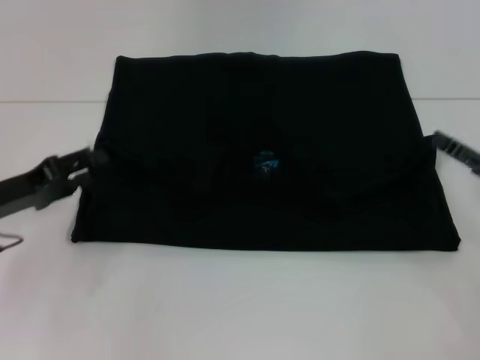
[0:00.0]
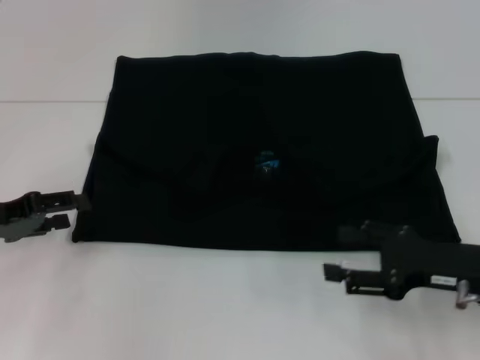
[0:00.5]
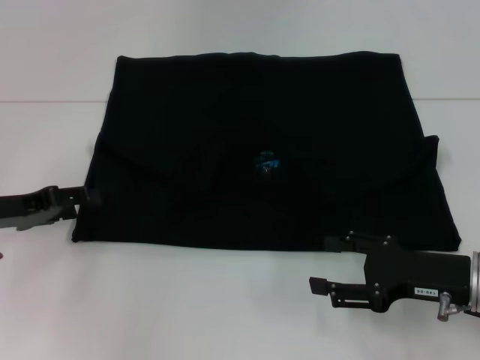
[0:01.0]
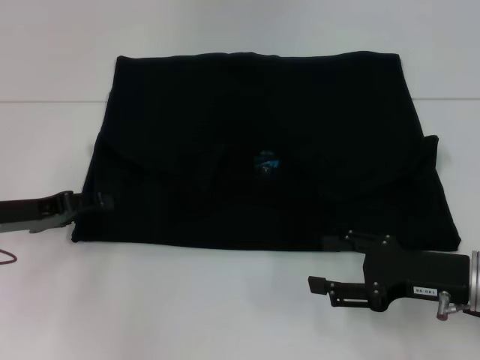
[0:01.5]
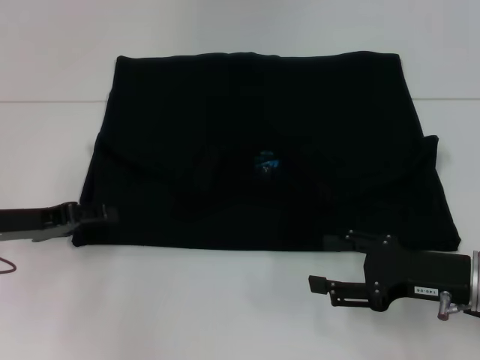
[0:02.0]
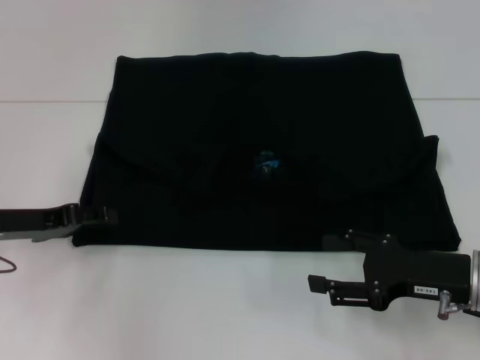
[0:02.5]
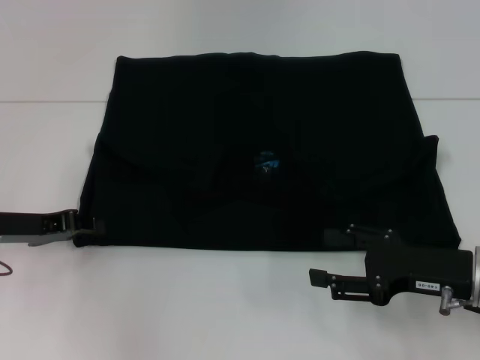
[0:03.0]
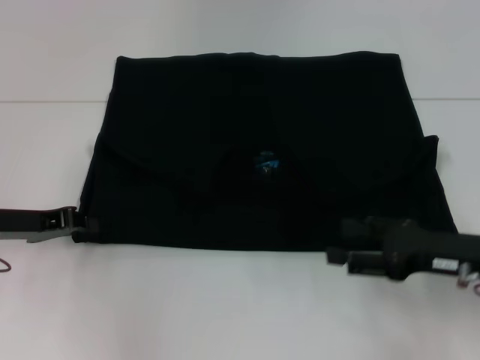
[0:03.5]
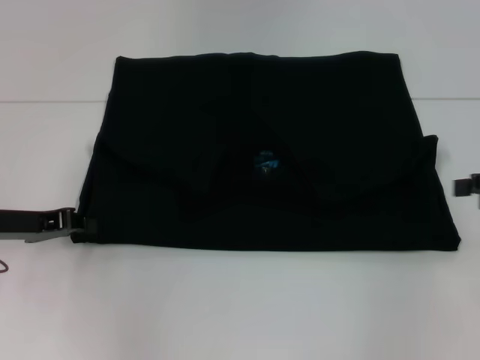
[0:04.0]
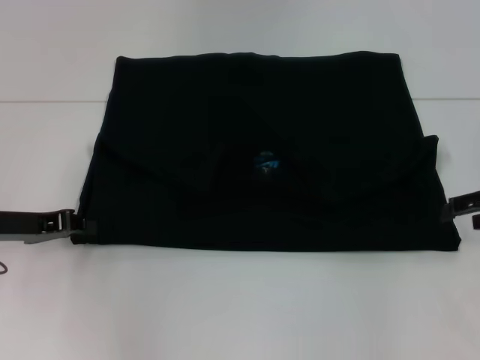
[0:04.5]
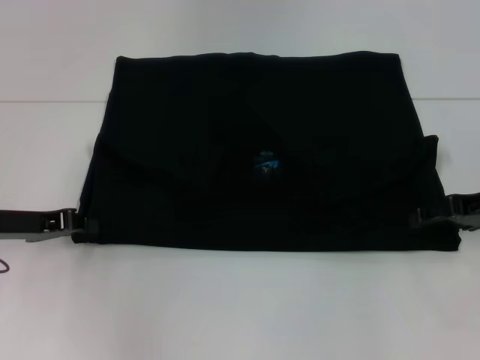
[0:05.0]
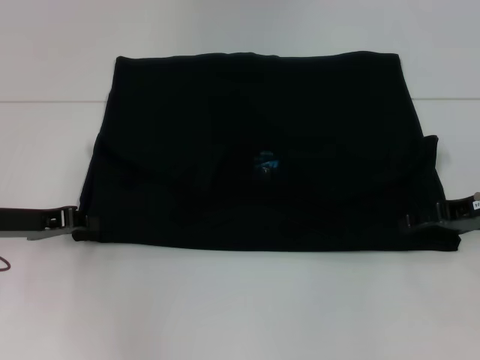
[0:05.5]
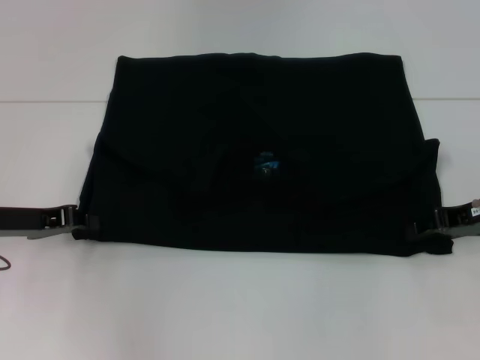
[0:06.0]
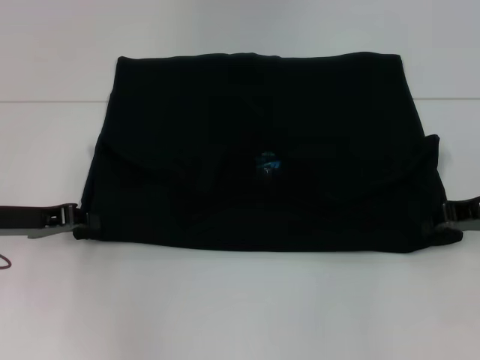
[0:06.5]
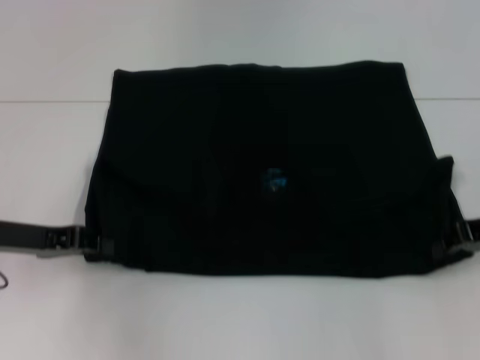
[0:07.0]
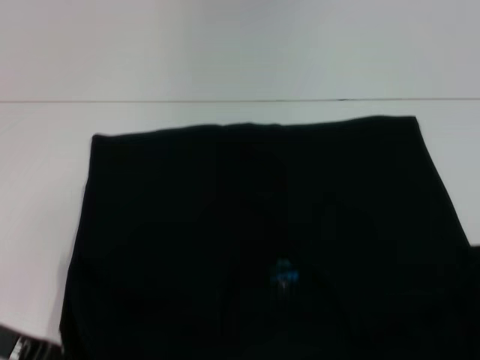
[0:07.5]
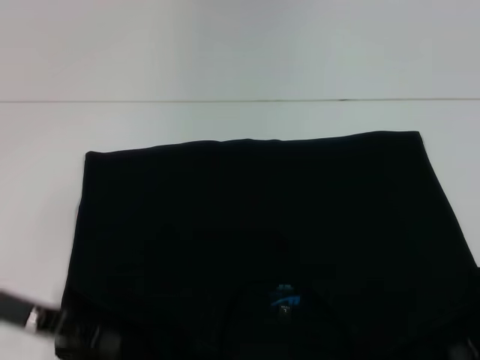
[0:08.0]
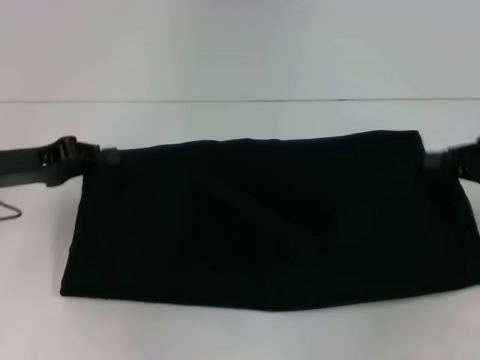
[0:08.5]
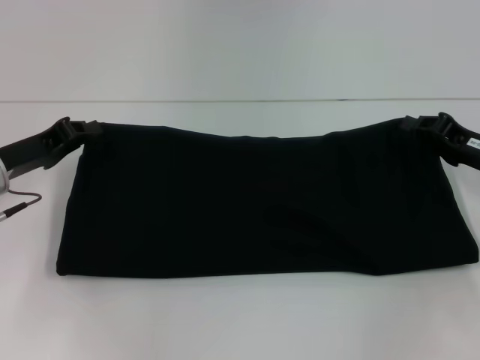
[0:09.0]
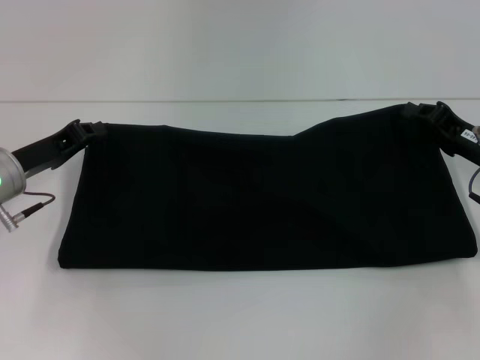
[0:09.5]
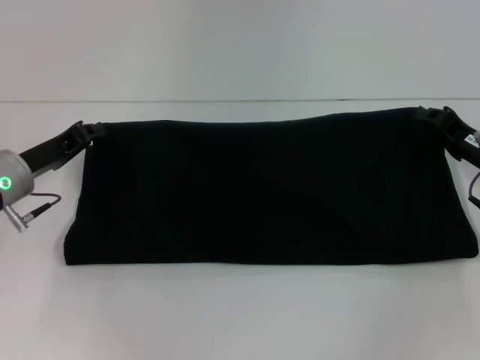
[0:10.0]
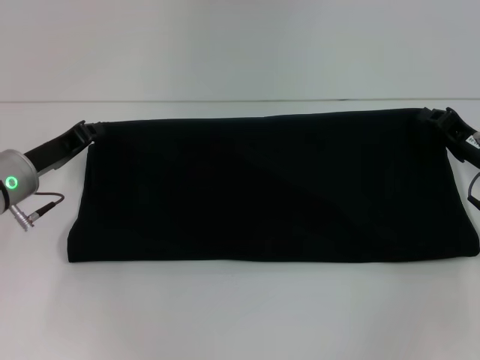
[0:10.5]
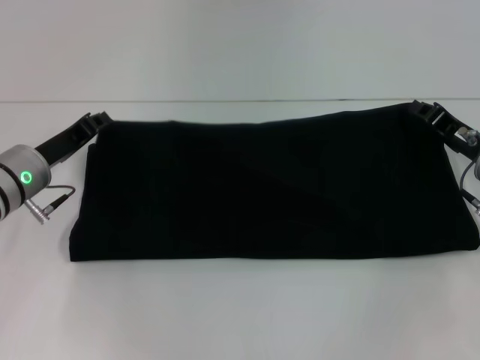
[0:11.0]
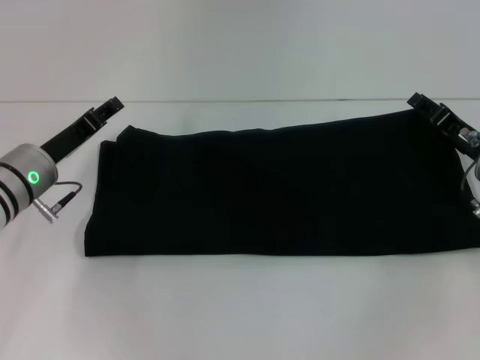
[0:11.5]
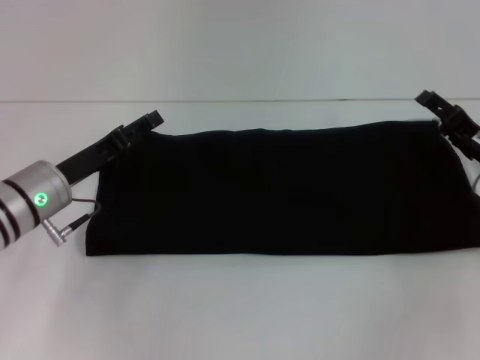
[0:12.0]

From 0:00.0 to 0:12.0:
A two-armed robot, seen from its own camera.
Step, from 0:00.0 to 0:07.0: Pull the clothes with your left hand.
Step, from 0:00.0 to 0:07.0: Pull the clothes with your right hand.
Step, from 0:07.5 to 0:12.0: Fold the clothes with your right hand.
From 0:00.0 to 0:02.0: The right gripper shifts approximately 10 cm to the left.
From 0:02.0 to 0:04.0: The right gripper shifts roughly 15 cm to the right, upward and forward. Meanwhile the left gripper closes its fingers.
From 0:04.0 to 0:06.0: The right gripper shifts about 10 cm to the left and downward.
From 0:06.0 to 0:08.0: The grippers both shift backward by approximately 5 cm. The right gripper closes up.
From 0:08.0 to 0:10.0: Both grippers travel together forward, approximately 10 cm.
From 0:10.0 to 0:12.0: The right gripper opens; the left gripper opens its fingers.

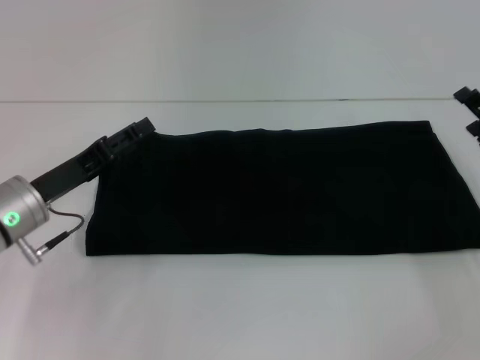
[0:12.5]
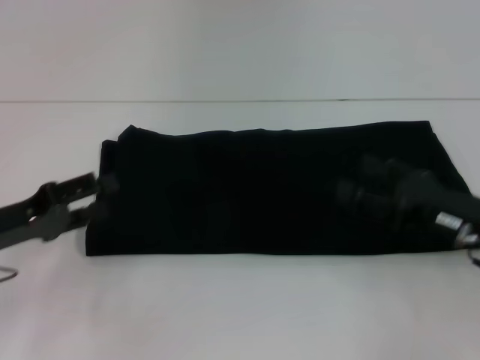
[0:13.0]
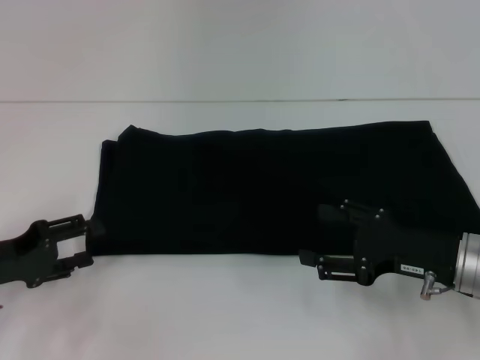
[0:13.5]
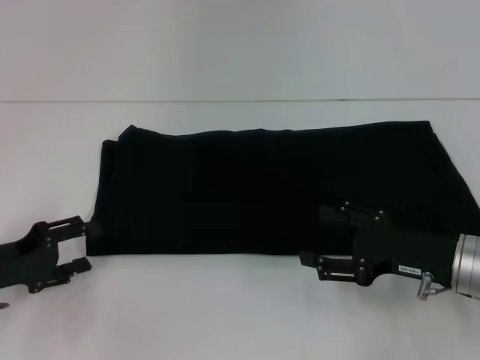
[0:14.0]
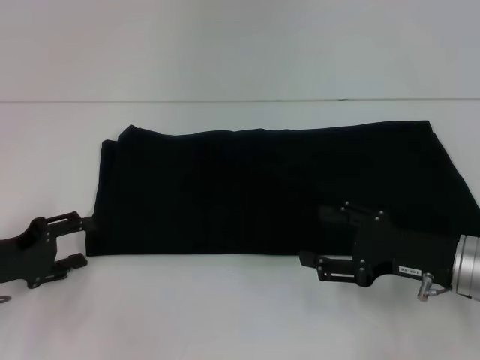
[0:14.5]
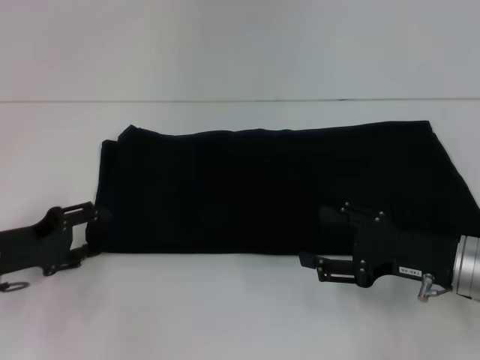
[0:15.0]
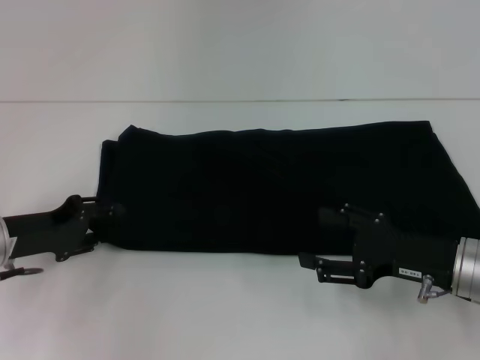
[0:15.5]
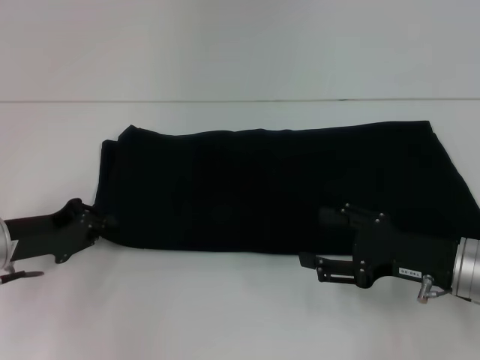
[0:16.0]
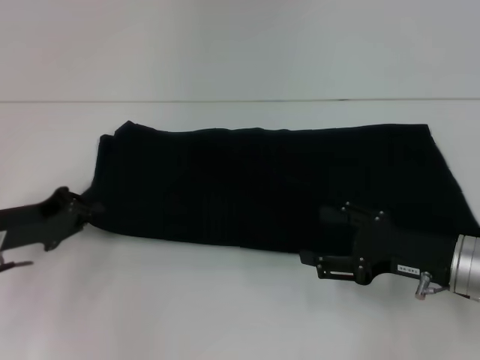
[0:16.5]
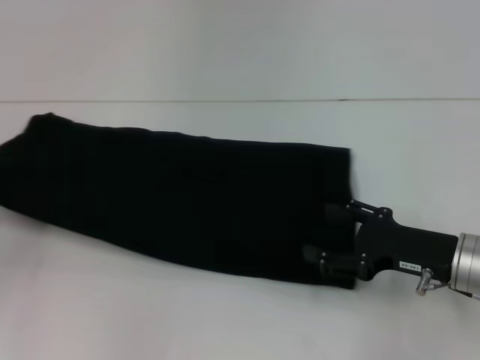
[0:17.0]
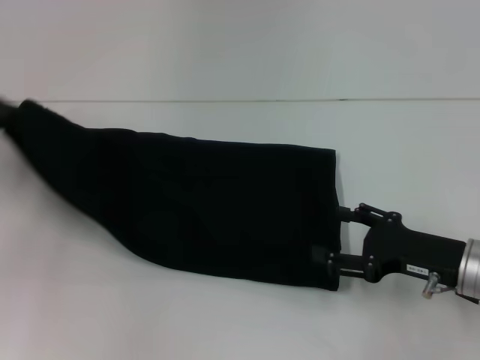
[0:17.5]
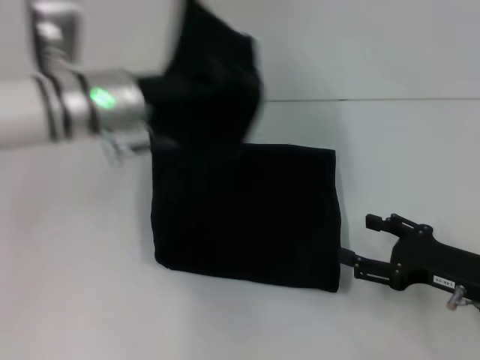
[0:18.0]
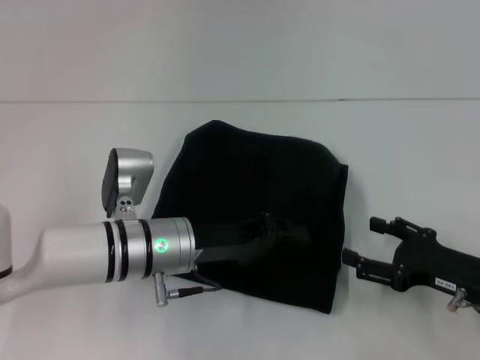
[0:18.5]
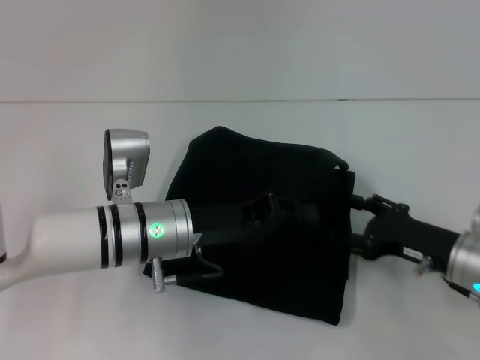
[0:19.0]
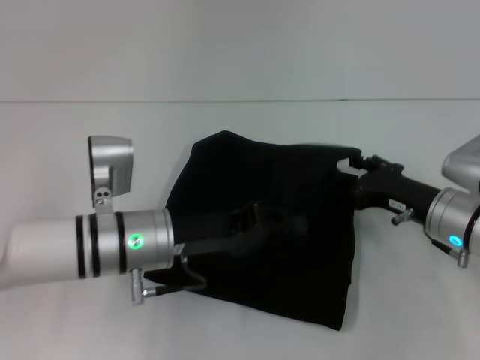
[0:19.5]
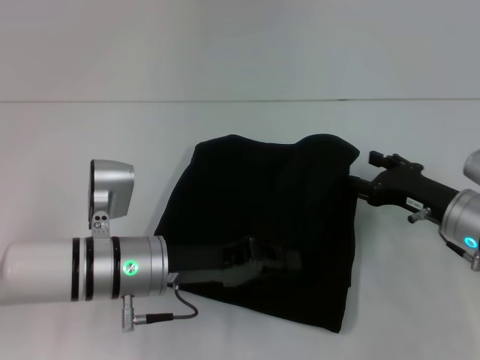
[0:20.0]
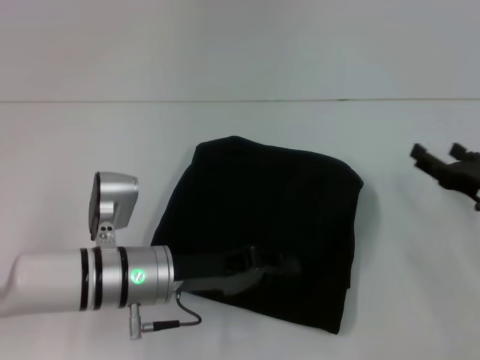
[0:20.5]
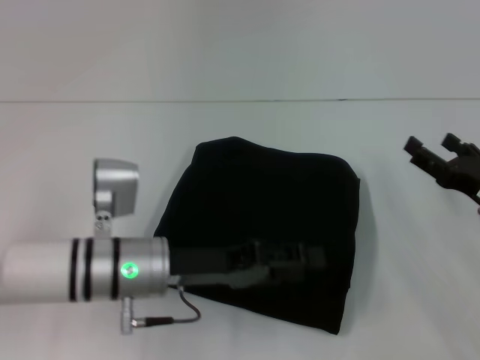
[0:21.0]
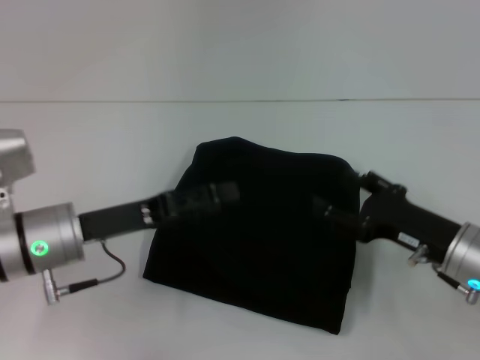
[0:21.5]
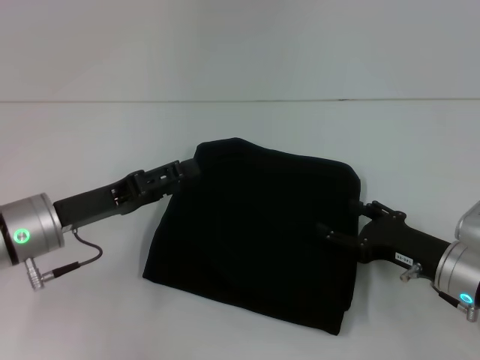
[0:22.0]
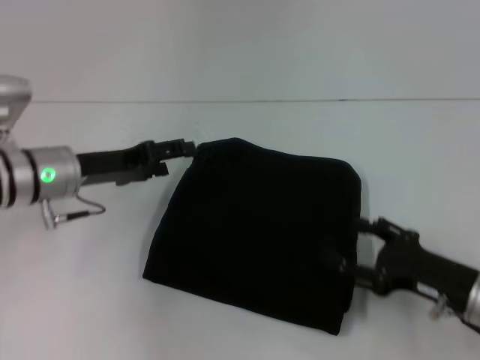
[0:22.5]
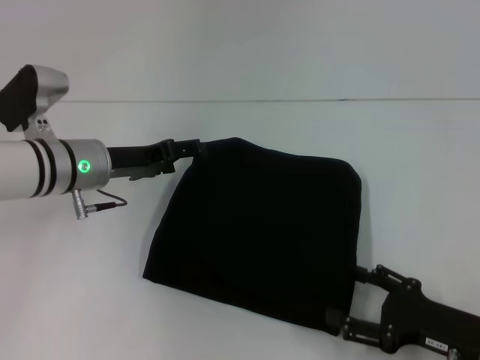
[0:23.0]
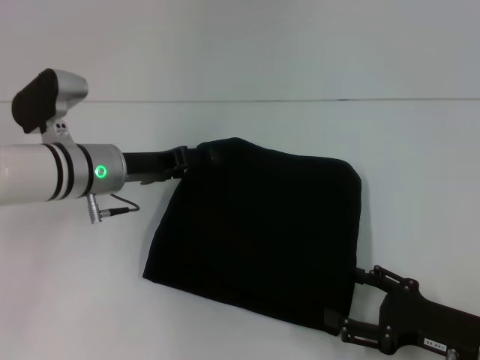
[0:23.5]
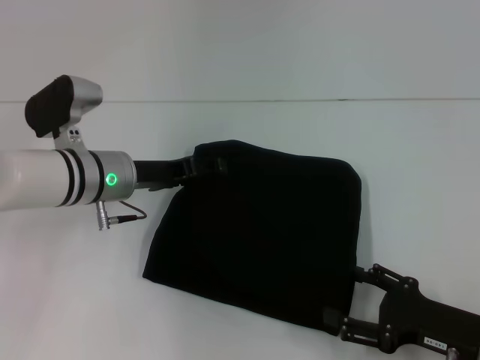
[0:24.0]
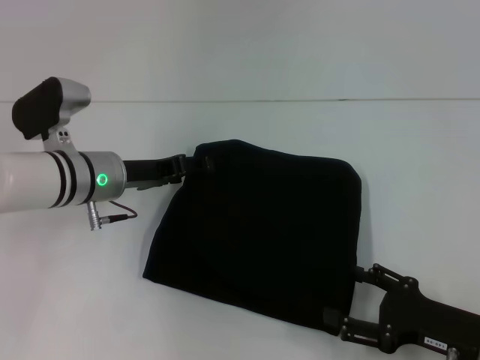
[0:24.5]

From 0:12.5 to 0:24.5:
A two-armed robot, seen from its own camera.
Step, from 0:12.5 to 0:21.0: Fold the clothes with your left hand.
From 0:12.5 to 0:14.5: The left gripper goes approximately 10 cm to the left; the right gripper shifts about 10 cm to the left and backward.
From 0:14.5 to 0:16.5: The left gripper closes its fingers.
From 0:16.5 to 0:18.5: The right gripper changes place by approximately 5 cm. The left gripper shifts about 20 cm to the right.
From 0:18.5 to 0:20.5: The right gripper shifts about 5 cm forward.
From 0:20.5 to 0:22.5: The left gripper heads to the left and forward, covering about 10 cm, and opens up. Meanwhile the right gripper travels backward by about 5 cm.
From 0:22.5 to 0:24.5: The left gripper changes place by about 5 cm.

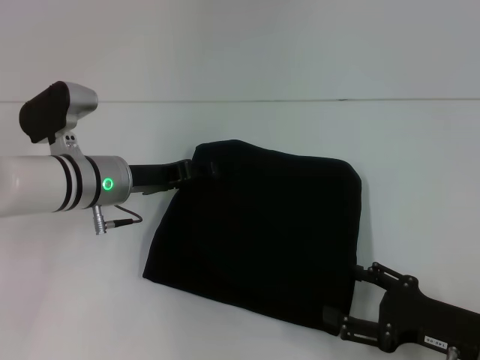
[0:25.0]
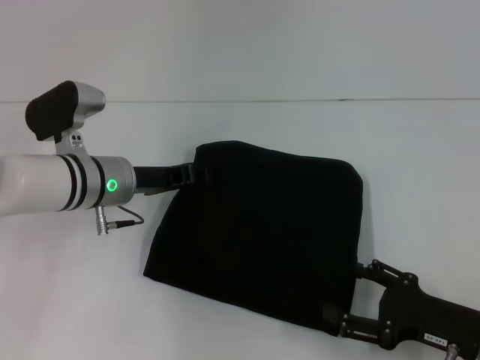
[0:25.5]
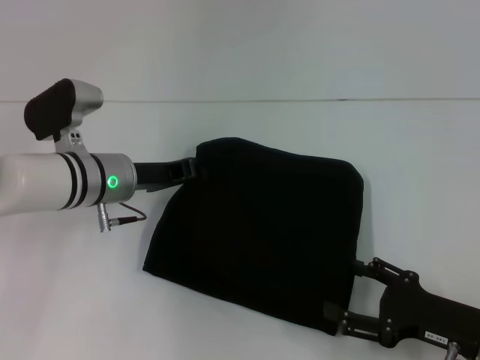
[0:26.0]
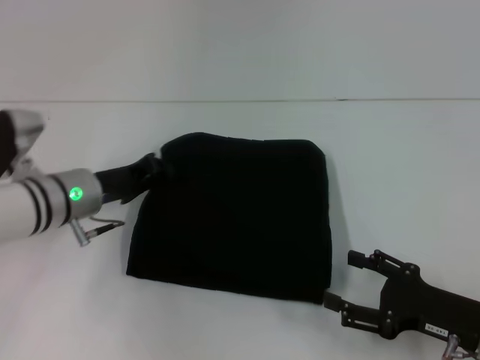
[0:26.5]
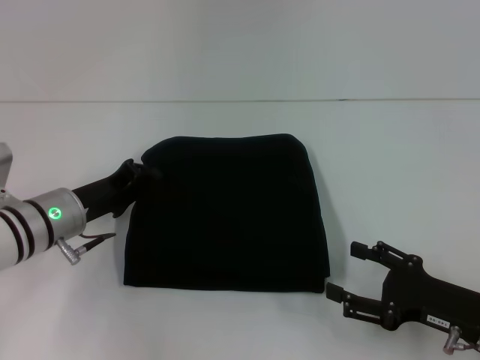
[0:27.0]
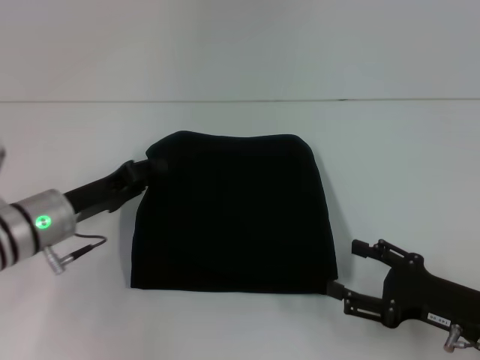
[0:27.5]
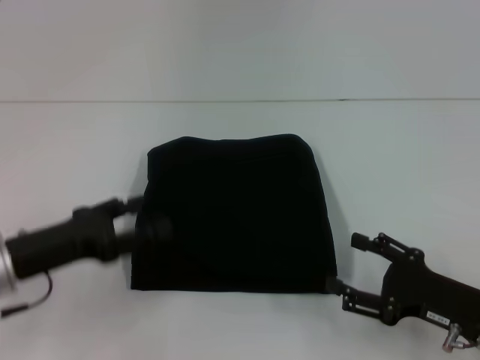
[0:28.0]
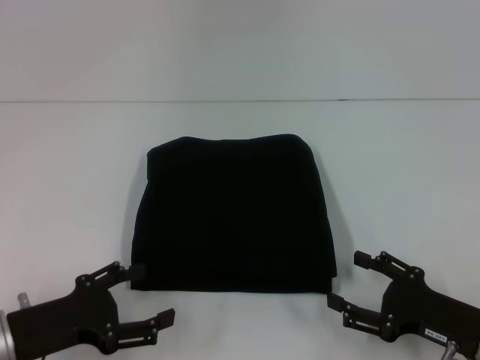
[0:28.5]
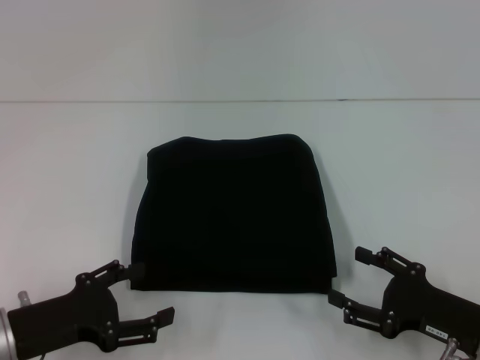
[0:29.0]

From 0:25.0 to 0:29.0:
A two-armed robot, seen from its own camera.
From 0:25.0 to 0:27.0: The left gripper shifts by roughly 5 cm, and closes.
From 0:27.0 to 0:29.0: The left gripper moves backward, roughly 15 cm, and opens up.
